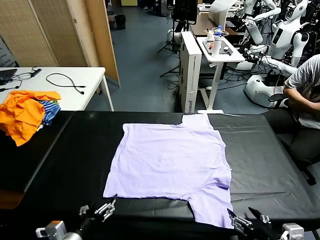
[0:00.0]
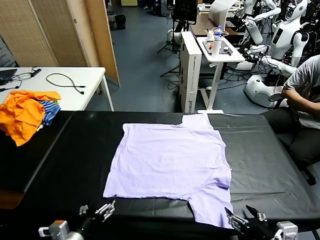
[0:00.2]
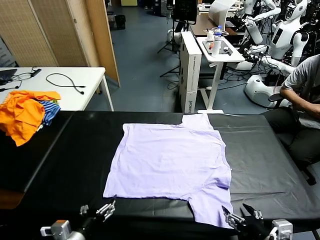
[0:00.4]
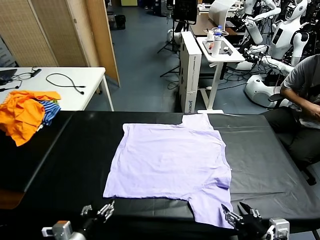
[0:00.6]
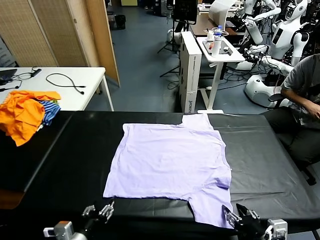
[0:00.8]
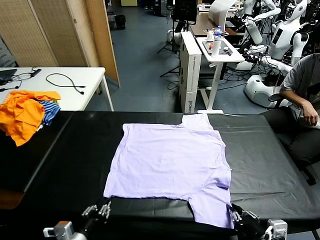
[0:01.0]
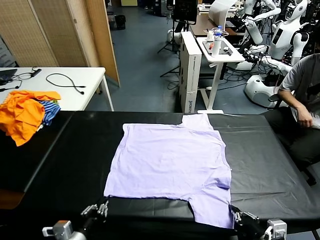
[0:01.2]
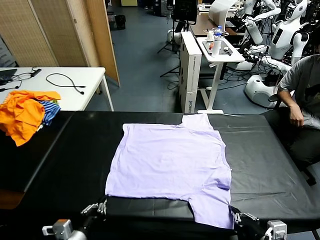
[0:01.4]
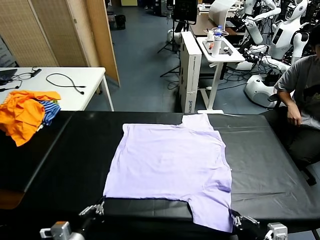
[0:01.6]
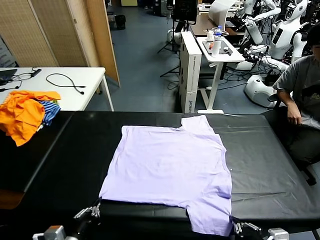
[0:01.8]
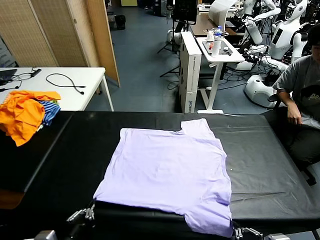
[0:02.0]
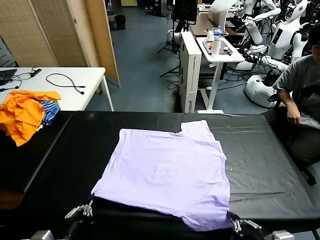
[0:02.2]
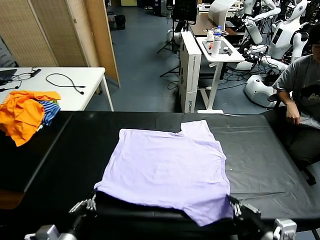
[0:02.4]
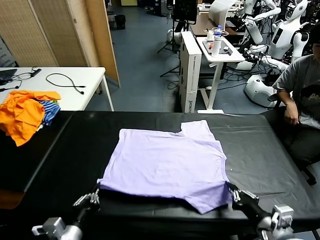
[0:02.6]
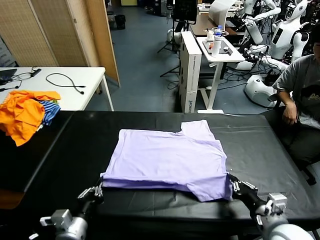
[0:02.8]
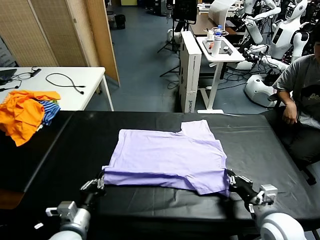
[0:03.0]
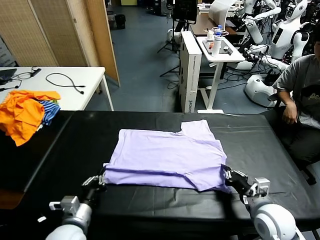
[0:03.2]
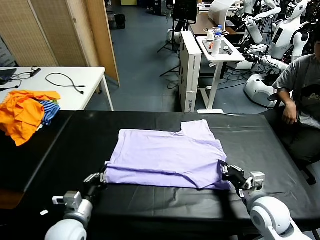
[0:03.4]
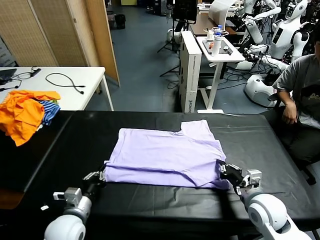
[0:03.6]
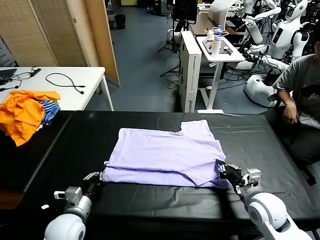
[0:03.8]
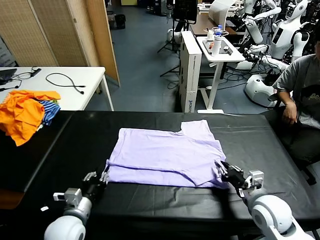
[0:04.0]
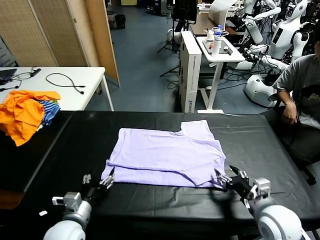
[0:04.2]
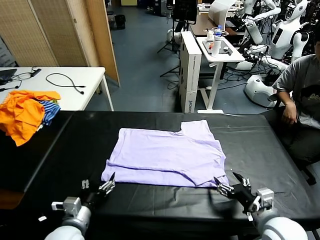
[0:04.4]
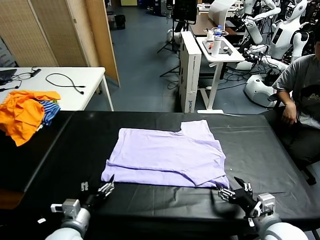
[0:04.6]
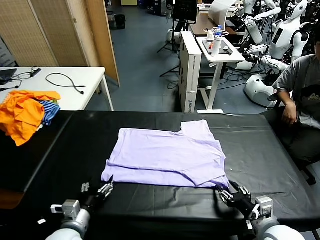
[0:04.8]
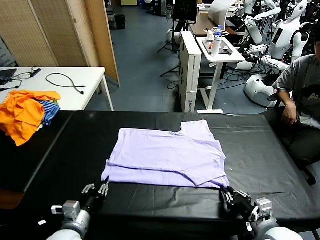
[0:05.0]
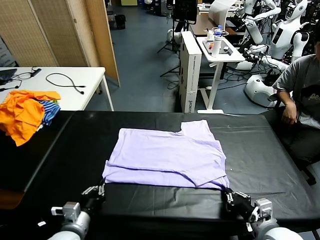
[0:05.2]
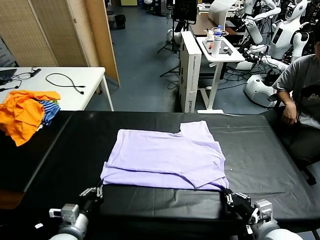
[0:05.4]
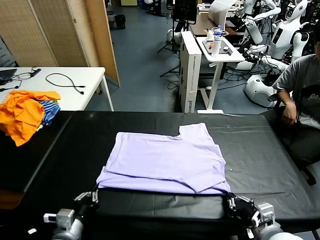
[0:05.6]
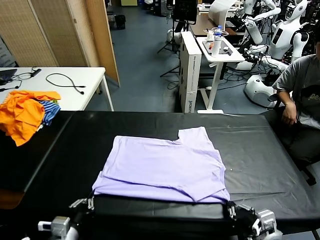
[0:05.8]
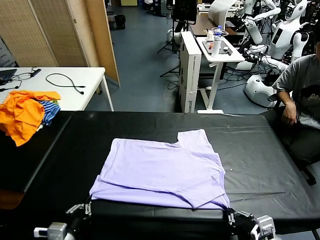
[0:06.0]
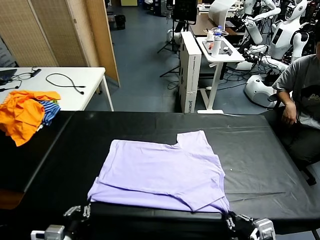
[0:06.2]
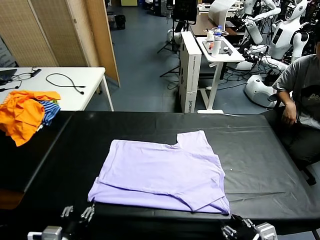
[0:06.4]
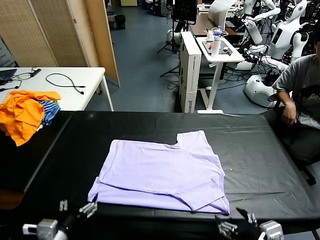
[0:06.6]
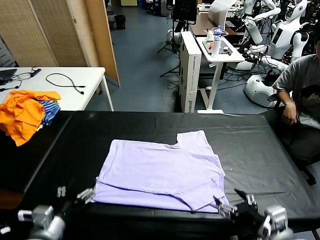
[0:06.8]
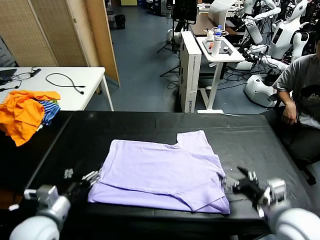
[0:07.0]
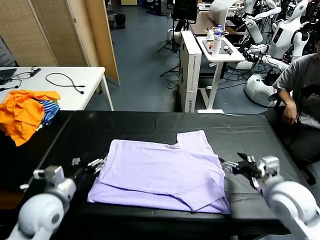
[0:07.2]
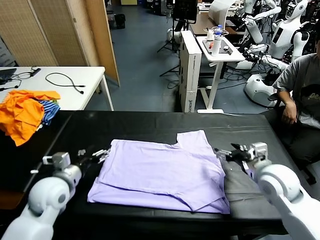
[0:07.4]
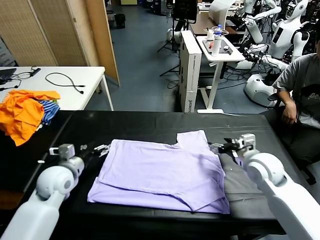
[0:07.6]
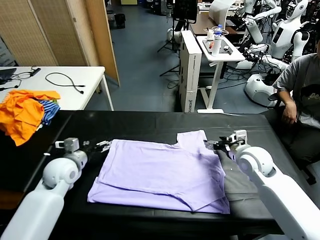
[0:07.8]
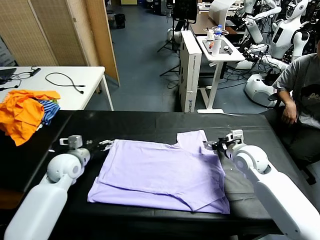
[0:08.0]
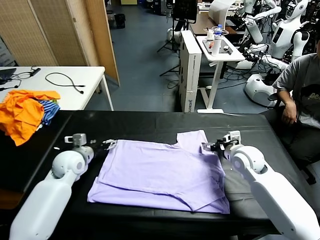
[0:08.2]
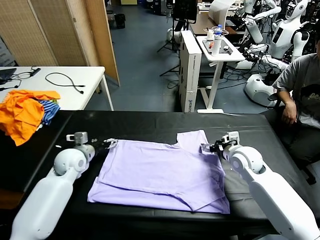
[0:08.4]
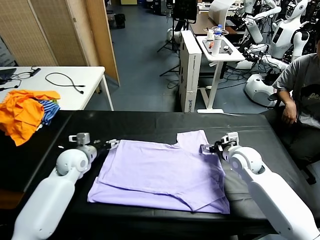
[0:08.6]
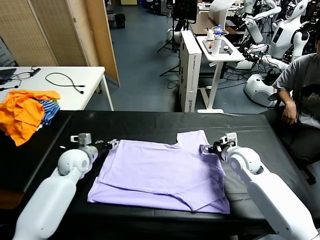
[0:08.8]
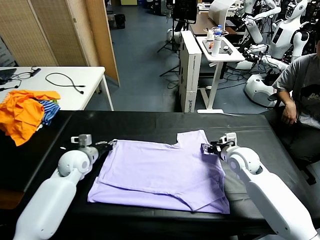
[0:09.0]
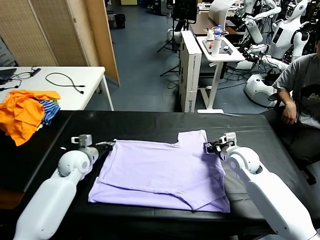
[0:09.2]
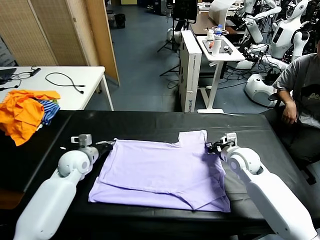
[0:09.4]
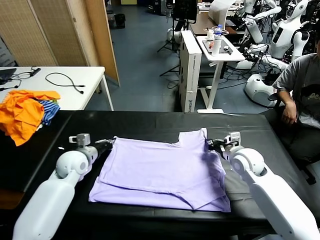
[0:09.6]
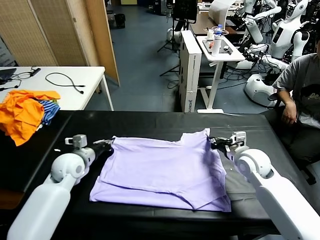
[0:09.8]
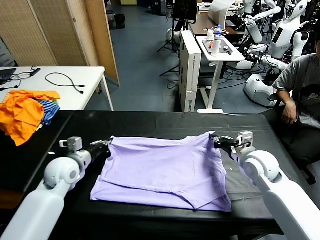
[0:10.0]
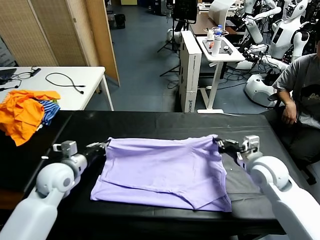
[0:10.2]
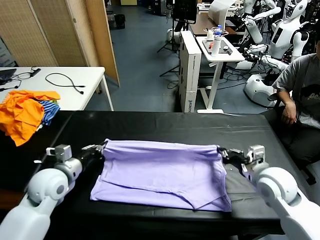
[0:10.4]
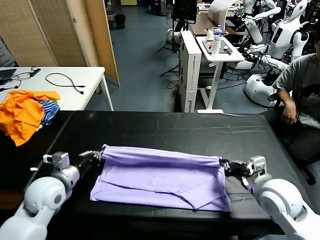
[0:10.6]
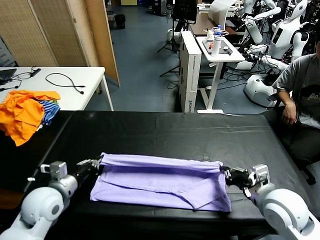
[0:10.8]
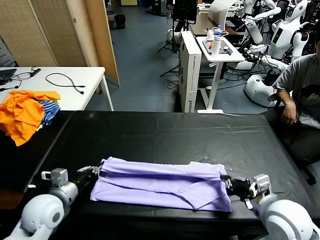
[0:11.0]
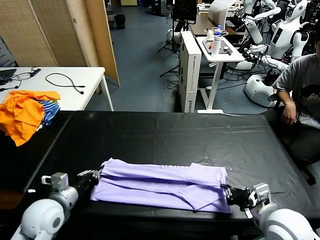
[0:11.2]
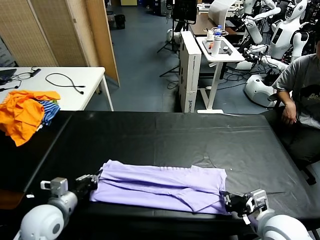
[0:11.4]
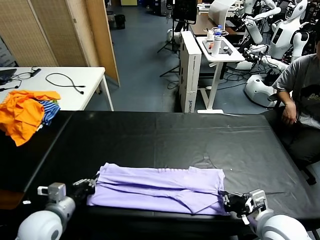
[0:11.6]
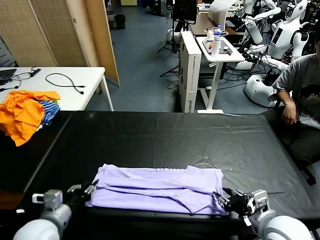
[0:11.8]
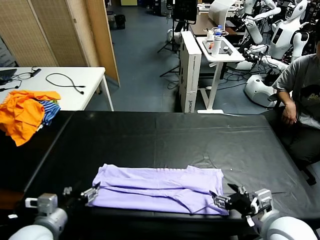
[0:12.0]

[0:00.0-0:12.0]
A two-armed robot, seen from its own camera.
Task of the whole recording: fold and organize the clothes.
Step, 0:00.0 to 0:01.6: use both grippers simultaneously to clamp the lower edge of the clothing fabric.
Step, 0:01.8 to 0:04.0: use both grippers to drag the lower edge of the fabric forward and fold it over the upper edge.
Step, 0:04.2 to 0:06.4: Drag the clothes downward with both gripper.
Step, 0:06.6 to 0:09.2: use both grippers simultaneously to clamp the upper edge of the clothing fabric.
0:01.6 to 0:03.0: The right gripper goes approximately 15 cm forward; the left gripper moves forward, about 5 cm.
0:03.0 to 0:04.4: The left gripper opens up. The right gripper goes roughly 5 cm backward, and opens its fingers.
0:04.4 to 0:06.0: Both grippers move backward, roughly 5 cm. The right gripper closes; the left gripper closes.
0:06.0 to 0:07.6: Both grippers move forward, approximately 25 cm. The right gripper opens its fingers. The left gripper opens.
0:07.6 to 0:09.0: The left gripper goes about 5 cm forward, and closes, while the right gripper changes place by some 5 cm, and closes its fingers.
0:09.0 to 0:10.4: The left gripper moves backward and upward, approximately 15 cm. Meanwhile the right gripper travels backward by roughly 15 cm.
0:10.4 to 0:12.0: The grippers both shift backward by some 10 cm. The right gripper opens; the left gripper opens its fingers.

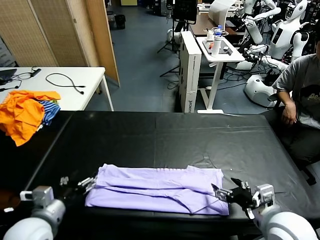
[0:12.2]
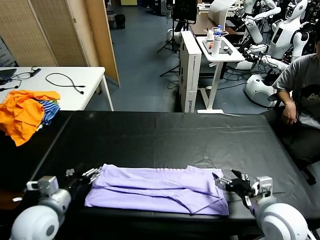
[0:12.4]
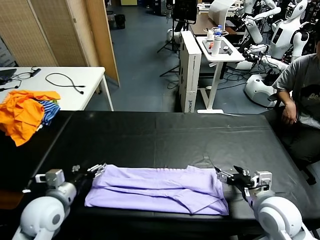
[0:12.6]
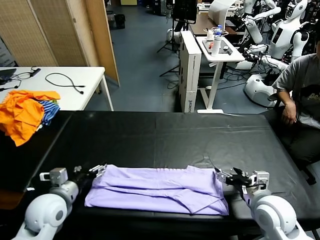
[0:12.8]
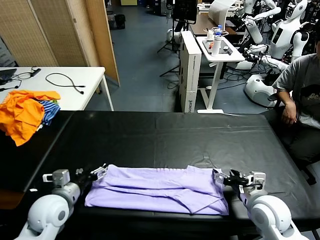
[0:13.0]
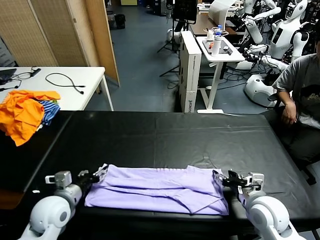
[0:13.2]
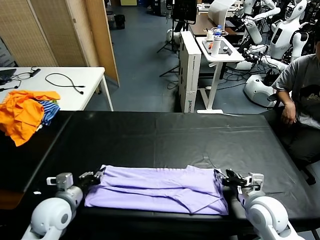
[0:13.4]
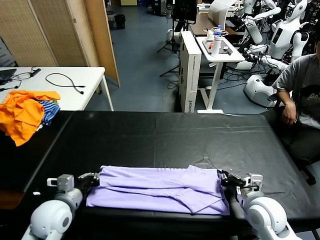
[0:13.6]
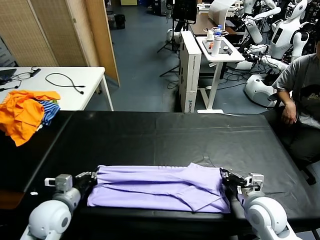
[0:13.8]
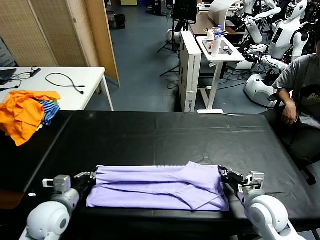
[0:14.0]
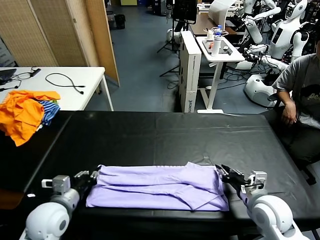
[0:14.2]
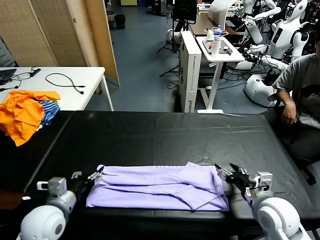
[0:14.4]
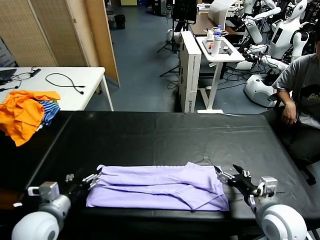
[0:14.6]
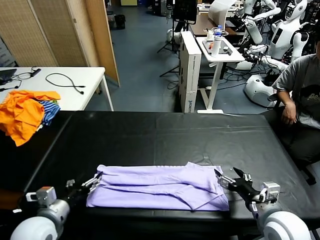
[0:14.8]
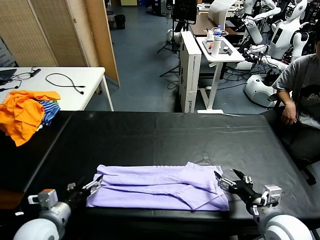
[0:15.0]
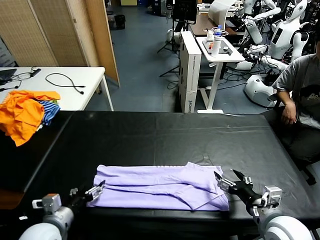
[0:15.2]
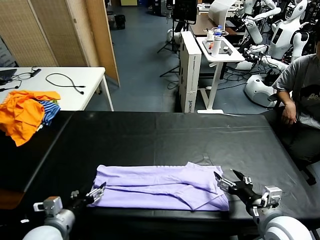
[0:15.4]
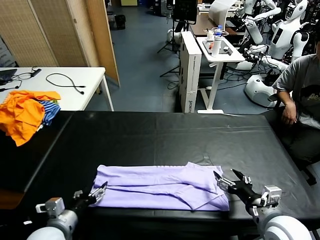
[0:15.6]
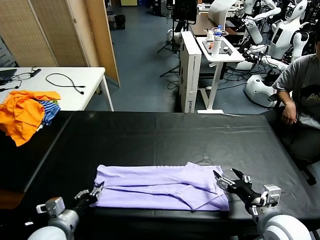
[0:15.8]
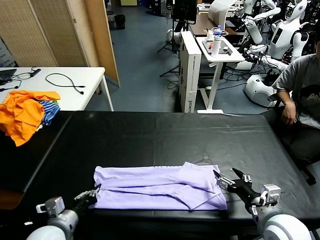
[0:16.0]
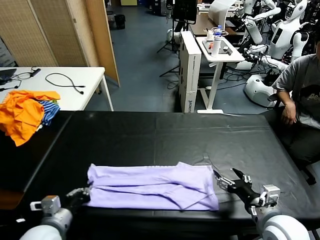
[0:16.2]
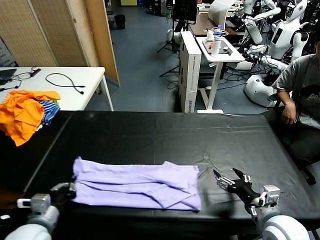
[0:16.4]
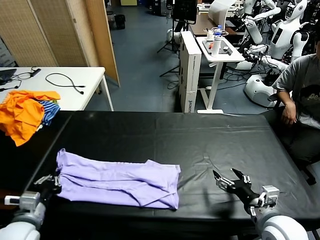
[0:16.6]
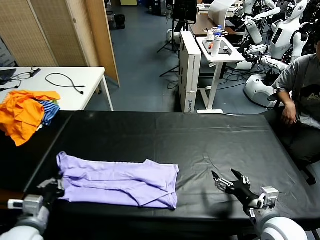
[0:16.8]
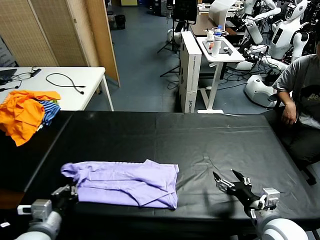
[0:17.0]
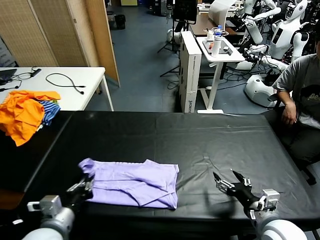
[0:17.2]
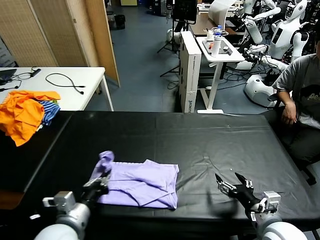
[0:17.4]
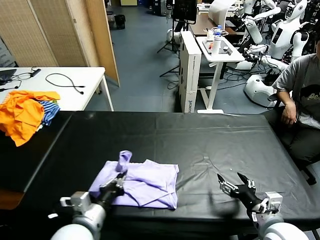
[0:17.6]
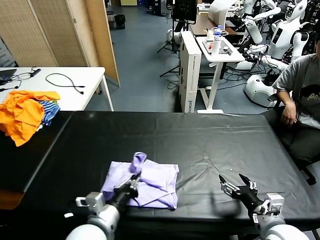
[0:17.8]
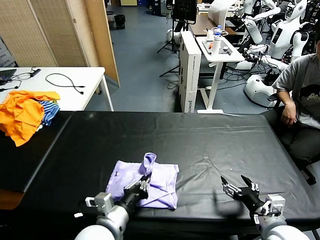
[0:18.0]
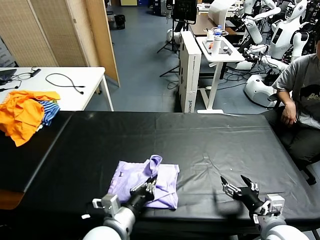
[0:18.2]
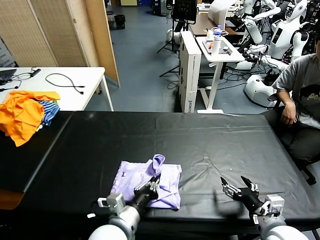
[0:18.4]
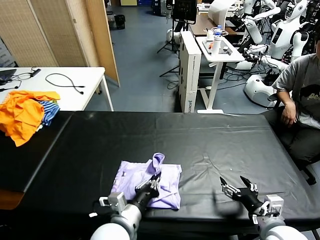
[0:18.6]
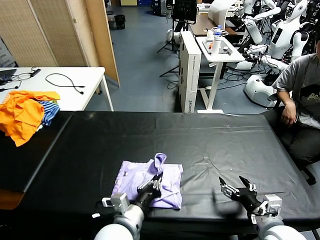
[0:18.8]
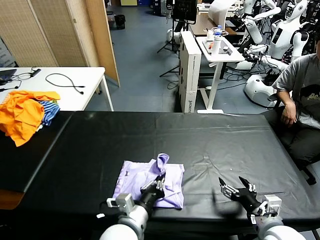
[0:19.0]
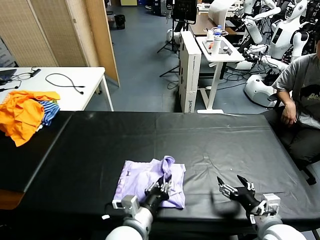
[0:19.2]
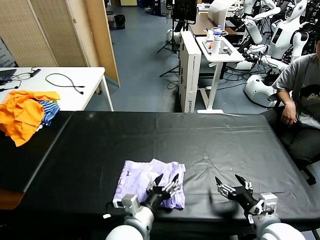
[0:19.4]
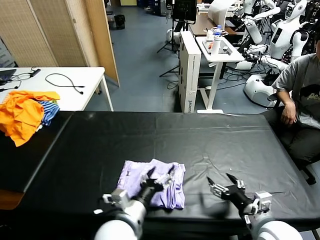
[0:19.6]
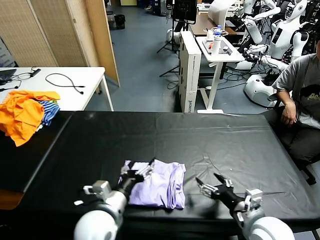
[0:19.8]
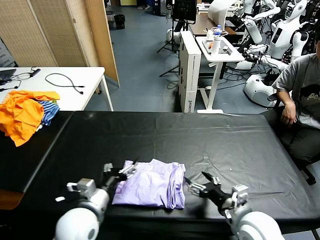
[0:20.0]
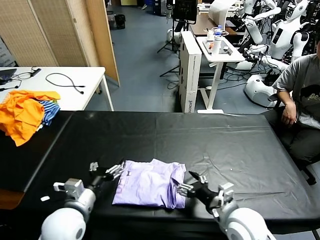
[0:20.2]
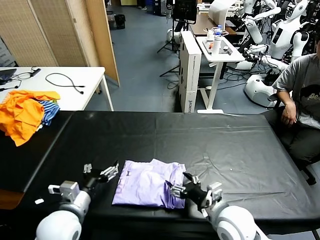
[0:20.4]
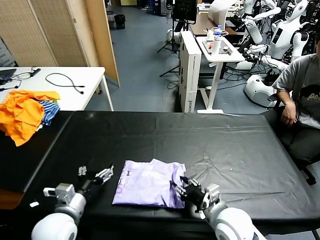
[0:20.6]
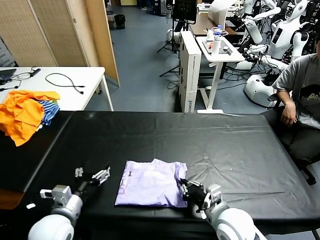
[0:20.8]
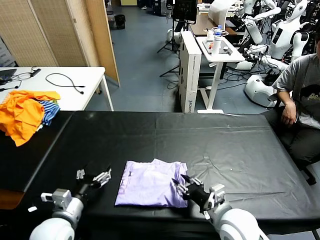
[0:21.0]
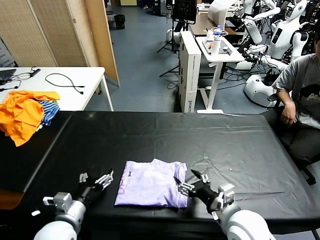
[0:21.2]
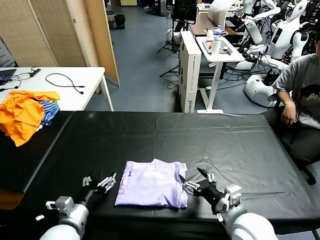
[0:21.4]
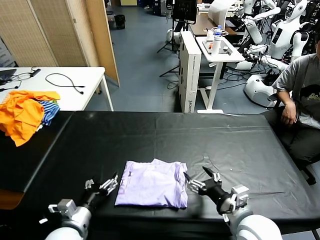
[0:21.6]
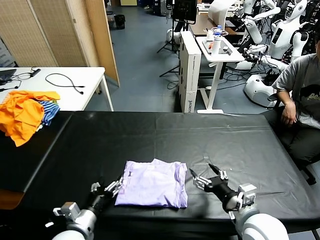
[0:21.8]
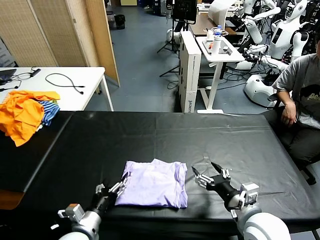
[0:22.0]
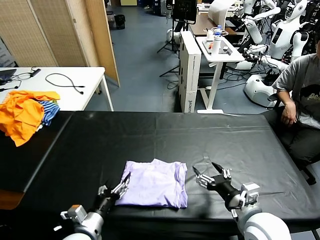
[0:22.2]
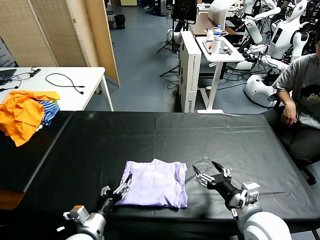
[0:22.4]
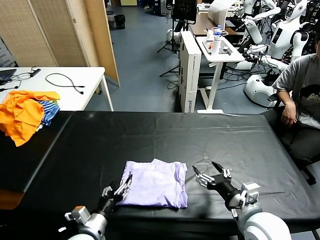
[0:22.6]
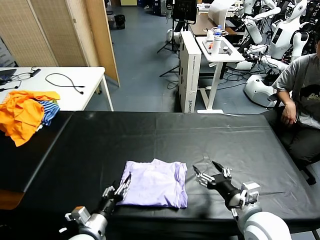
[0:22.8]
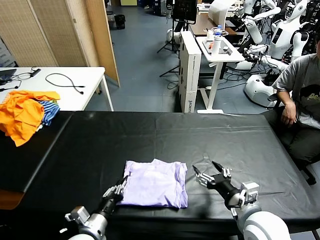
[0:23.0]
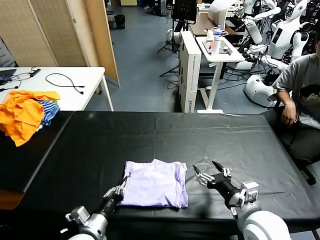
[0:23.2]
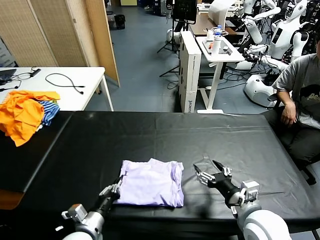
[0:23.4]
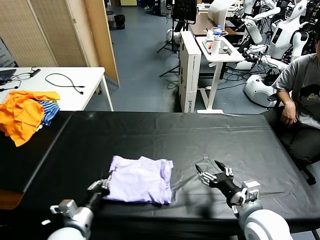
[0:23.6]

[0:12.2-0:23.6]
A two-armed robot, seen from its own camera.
Task of the whole recording: fold and organize the clothes.
Step, 0:12.2 to 0:14.4: use both grippers to drag the upper edge of the fabric backward and fold it over the lower edge.
Step, 0:14.8 to 0:16.0: use the left gripper to clamp the left edge of the fabric.
Step, 0:16.4 to 0:21.2: use the left gripper to drag the left edge of the fabric to the left and folds it over the right edge.
0:12.2 to 0:13.6: The left gripper travels forward by approximately 5 cm, and closes its fingers, while the right gripper shifts about 5 cm downward, and closes up.
0:13.6 to 0:15.0: Both grippers move backward, about 5 cm. The right gripper opens; the left gripper opens up.
0:15.0 to 0:16.4: The left gripper closes up.
0:16.4 to 0:17.8: The left gripper is displaced to the right by about 15 cm.
0:17.8 to 0:19.4: The left gripper travels to the right by roughly 10 cm, and opens.
0:19.4 to 0:20.8: The right gripper is displaced to the left by roughly 10 cm, and closes its fingers. The left gripper travels to the left by roughly 20 cm.
0:20.8 to 0:22.2: The left gripper heads downward, covering approximately 5 cm, while the right gripper shifts about 5 cm to the right, and opens.
0:22.2 to 0:23.6: The left gripper closes.
